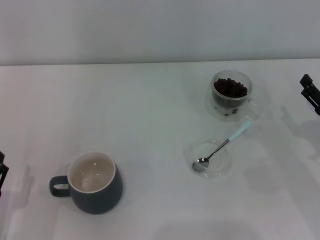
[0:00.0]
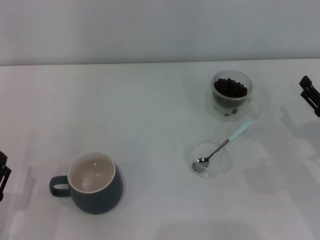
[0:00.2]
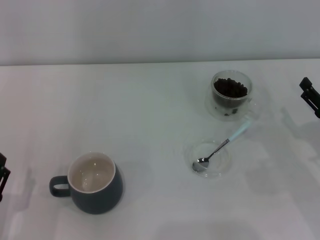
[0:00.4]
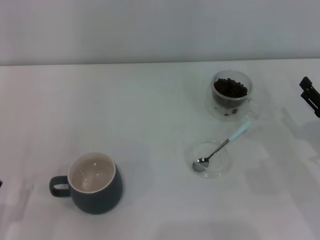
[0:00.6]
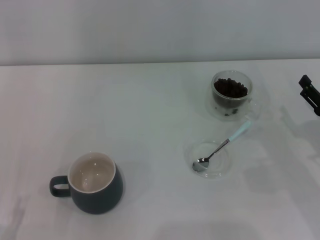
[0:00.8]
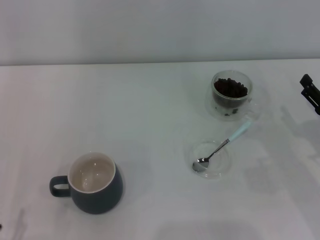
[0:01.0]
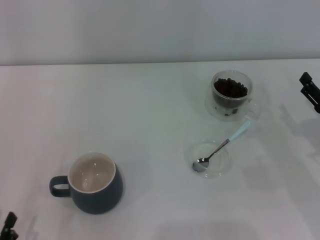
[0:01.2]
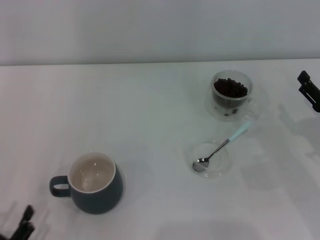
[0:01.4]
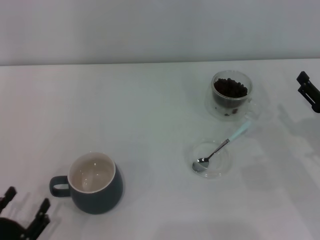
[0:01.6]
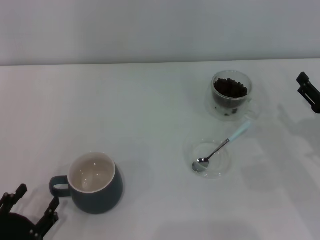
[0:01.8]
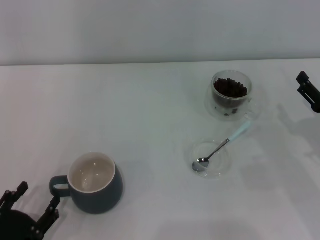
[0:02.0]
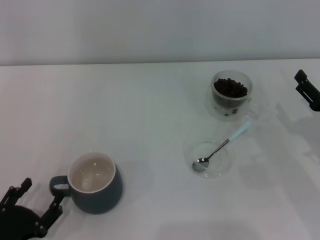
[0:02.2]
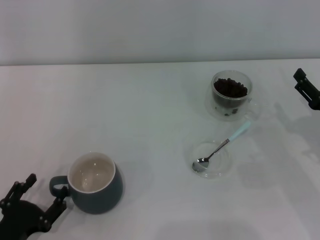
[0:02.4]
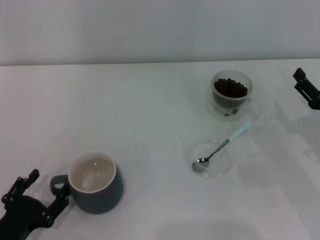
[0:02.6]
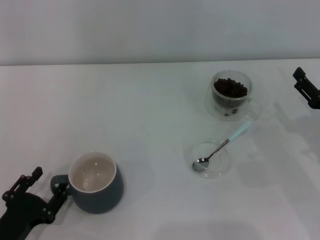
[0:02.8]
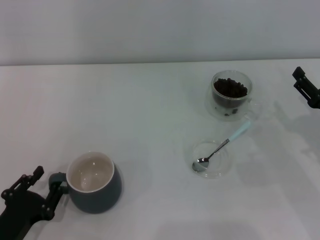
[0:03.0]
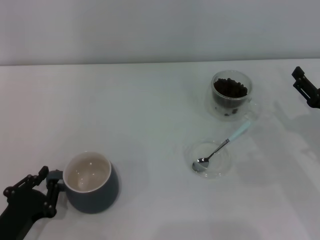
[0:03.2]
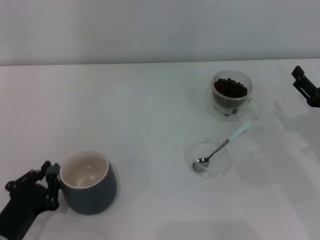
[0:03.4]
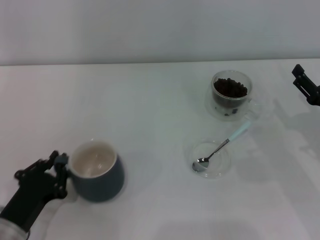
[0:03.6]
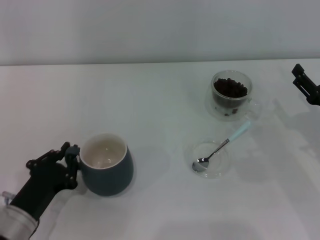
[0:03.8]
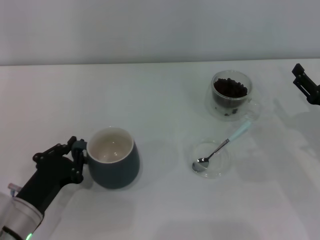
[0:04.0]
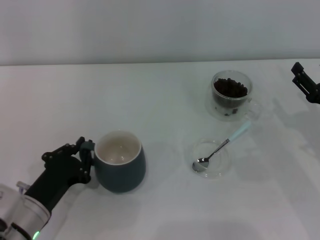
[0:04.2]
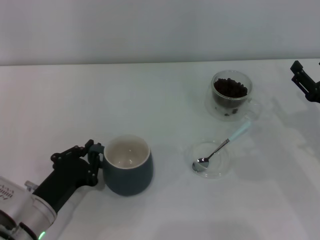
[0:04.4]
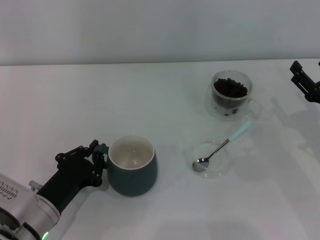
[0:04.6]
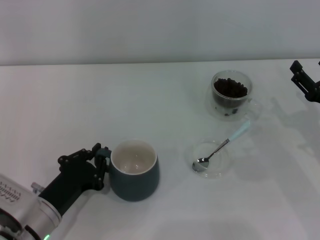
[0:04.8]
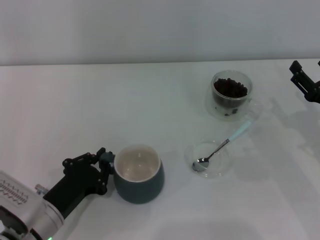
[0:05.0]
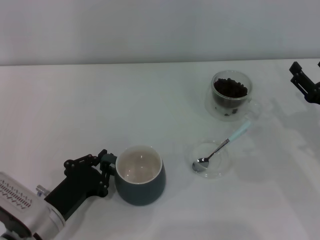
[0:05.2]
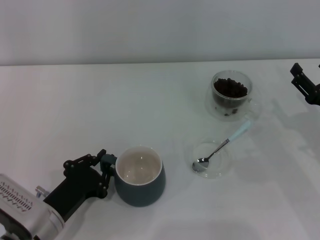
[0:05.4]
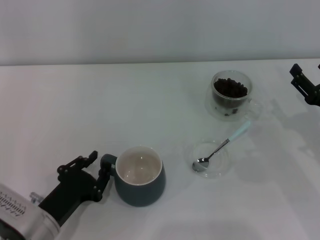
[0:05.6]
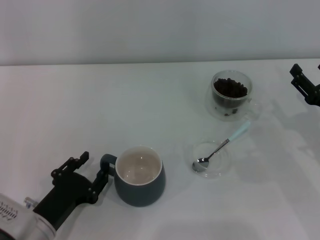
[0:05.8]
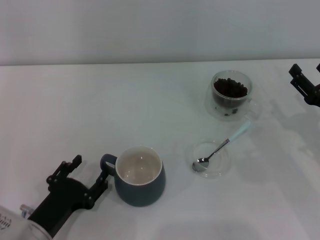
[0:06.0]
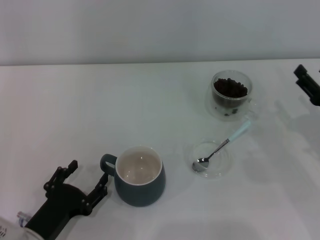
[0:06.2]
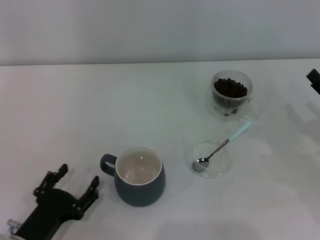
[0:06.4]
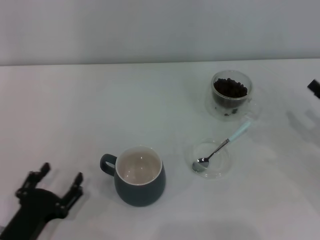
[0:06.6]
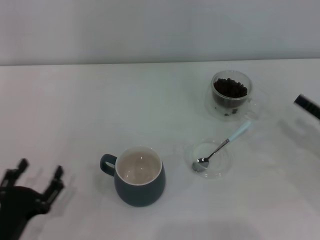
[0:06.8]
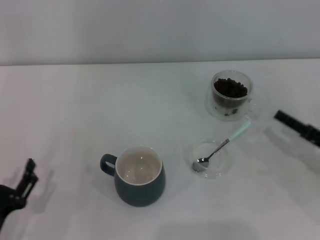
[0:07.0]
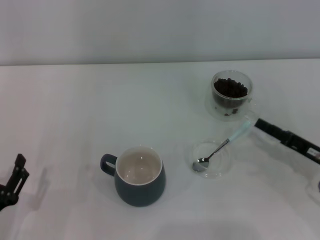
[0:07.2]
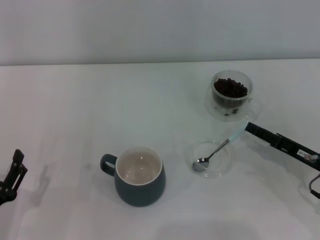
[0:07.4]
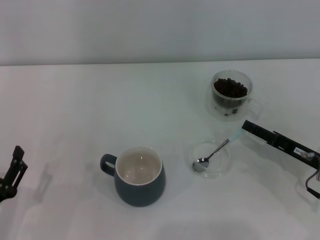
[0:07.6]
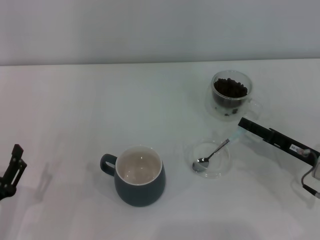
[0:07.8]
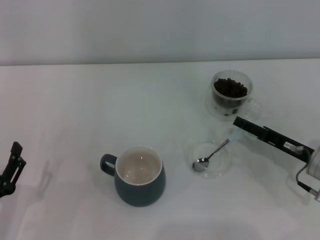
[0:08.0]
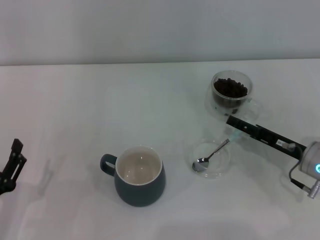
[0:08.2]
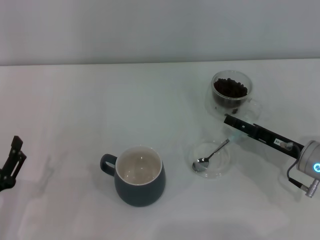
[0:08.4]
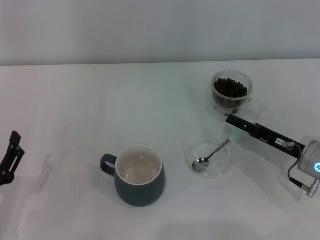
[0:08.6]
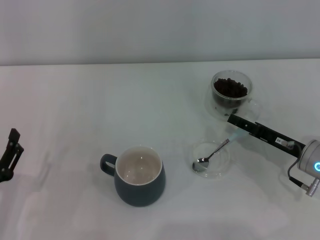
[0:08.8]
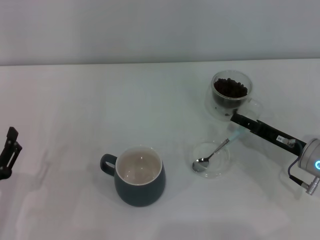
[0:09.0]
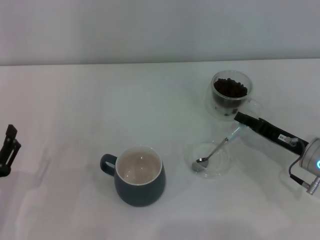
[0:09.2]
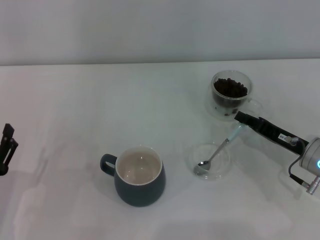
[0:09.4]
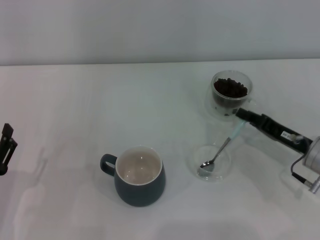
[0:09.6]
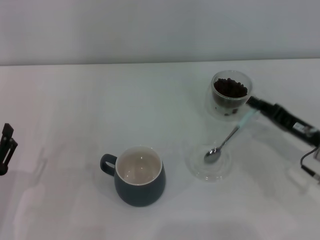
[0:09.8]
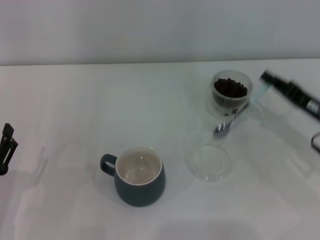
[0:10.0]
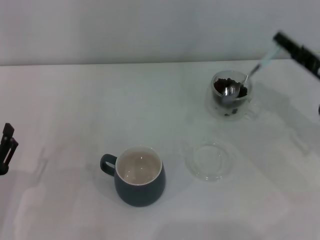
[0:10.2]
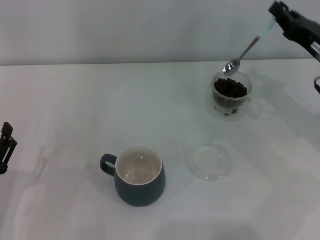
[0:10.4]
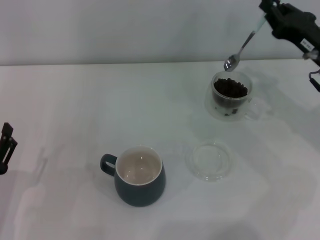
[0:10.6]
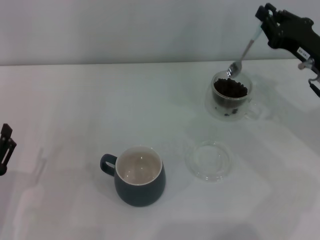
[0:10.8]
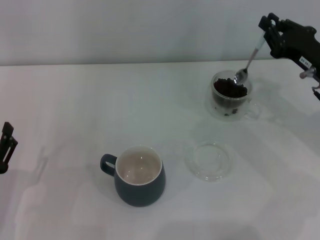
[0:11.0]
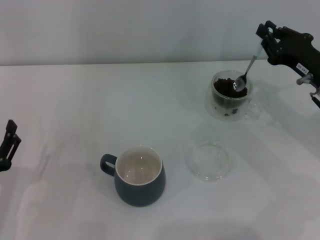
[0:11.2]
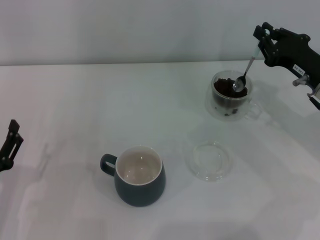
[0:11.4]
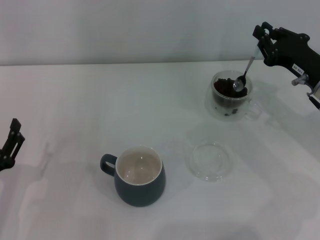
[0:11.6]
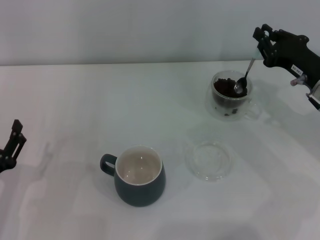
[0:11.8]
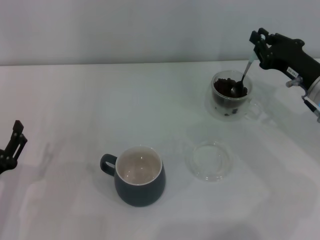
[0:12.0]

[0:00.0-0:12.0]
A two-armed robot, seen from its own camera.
Task of the whole recording: Use a blue spoon to take out the coffee beans from the glass and pour them into the gray cup.
Step, 0:00.0 to 0:06.2: Move the cup to the center of view with the left gripper.
Step, 0:06.4 to 0:09.8: Pick up the spoon with the right gripper.
0:01.6 to 0:03.0: The left gripper travels forward by approximately 5 cm.
0:03.0 to 0:04.4: The left gripper shifts roughly 10 cm forward and to the right, and closes its fingers.
0:04.4 to 0:06.0: The left gripper opens its fingers.
0:06.0 to 0:07.6: The left gripper moves to the left, roughly 5 cm.
0:07.6 to 0:09.0: There are only small adjustments of the grippers.
0:09.0 to 0:10.4: The right gripper travels upward and forward by approximately 10 cm, and closes its fingers.

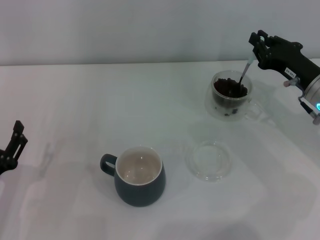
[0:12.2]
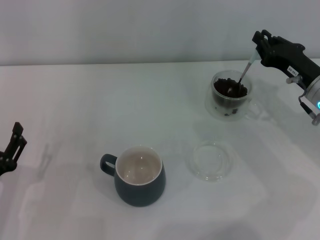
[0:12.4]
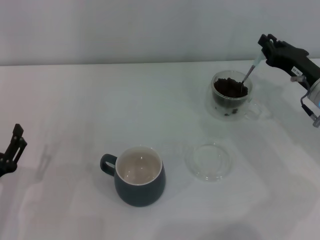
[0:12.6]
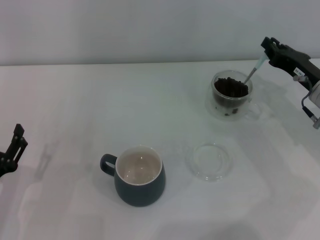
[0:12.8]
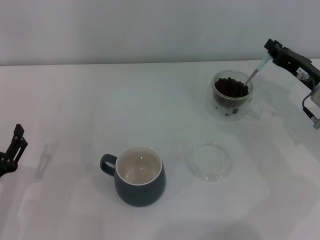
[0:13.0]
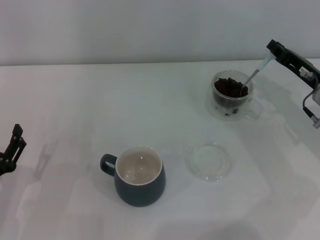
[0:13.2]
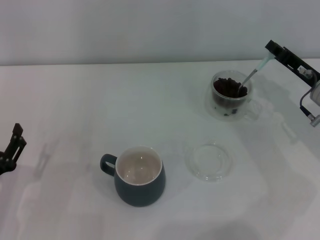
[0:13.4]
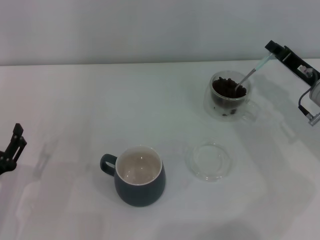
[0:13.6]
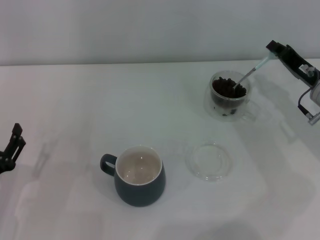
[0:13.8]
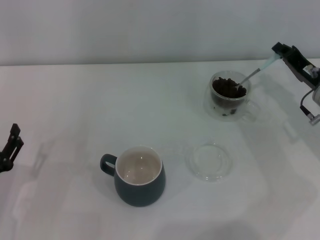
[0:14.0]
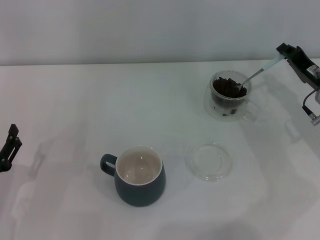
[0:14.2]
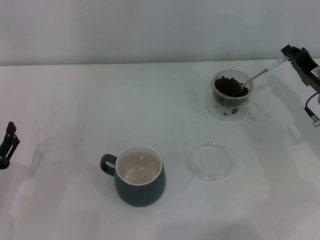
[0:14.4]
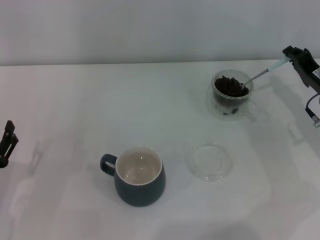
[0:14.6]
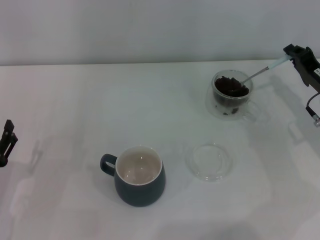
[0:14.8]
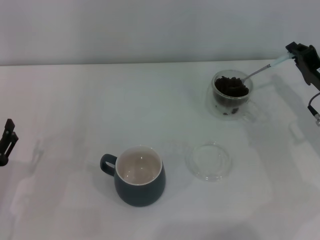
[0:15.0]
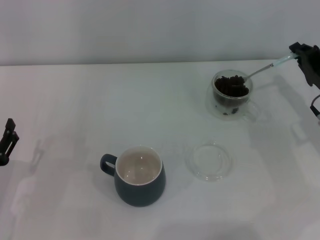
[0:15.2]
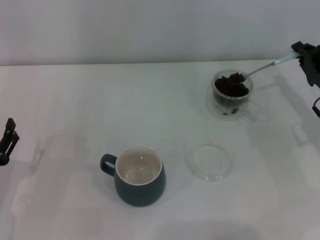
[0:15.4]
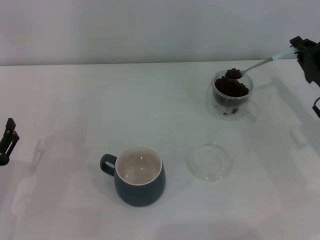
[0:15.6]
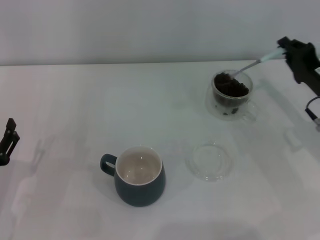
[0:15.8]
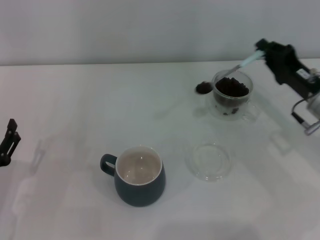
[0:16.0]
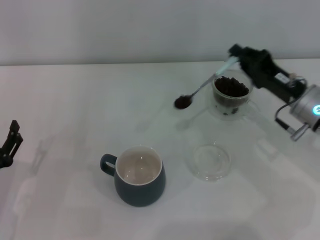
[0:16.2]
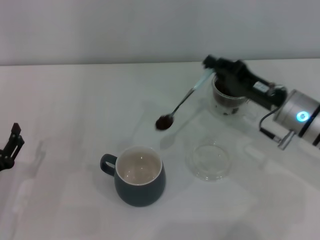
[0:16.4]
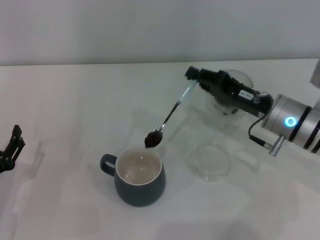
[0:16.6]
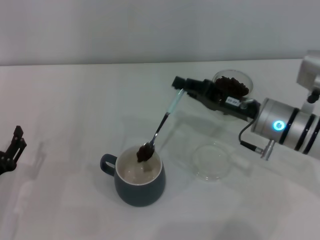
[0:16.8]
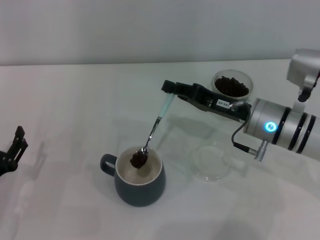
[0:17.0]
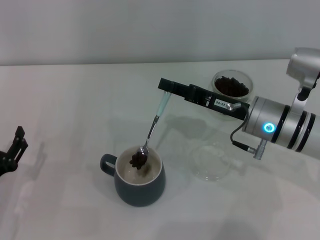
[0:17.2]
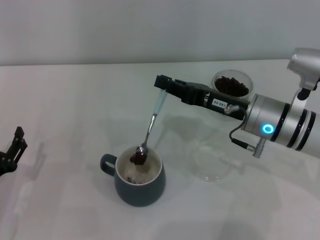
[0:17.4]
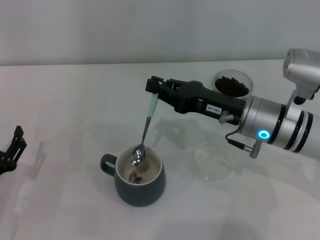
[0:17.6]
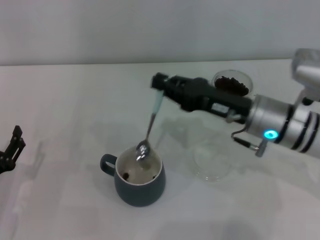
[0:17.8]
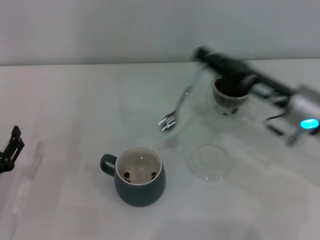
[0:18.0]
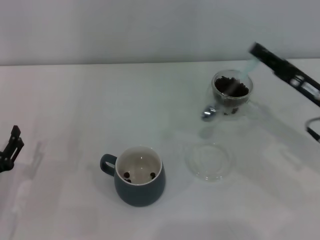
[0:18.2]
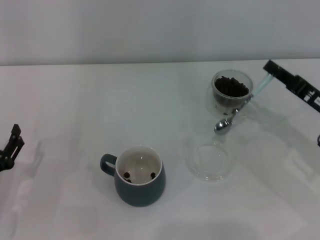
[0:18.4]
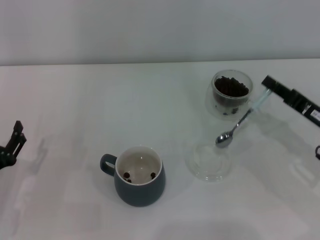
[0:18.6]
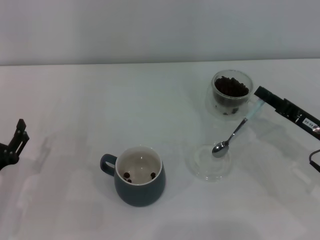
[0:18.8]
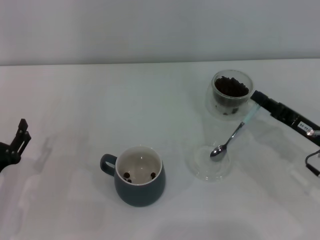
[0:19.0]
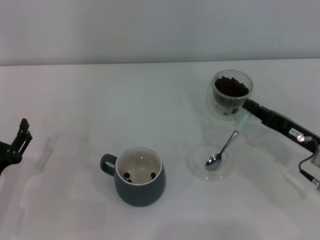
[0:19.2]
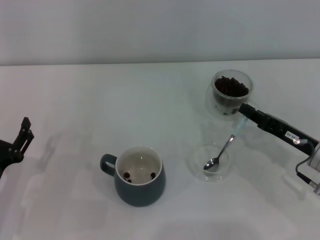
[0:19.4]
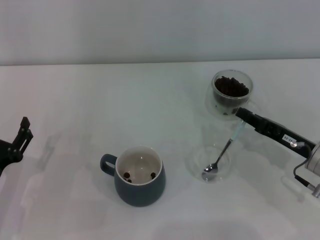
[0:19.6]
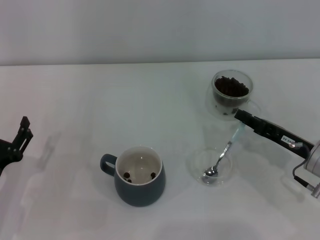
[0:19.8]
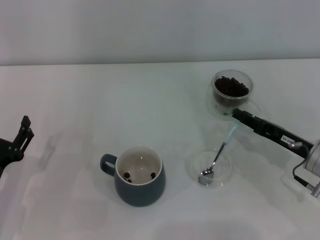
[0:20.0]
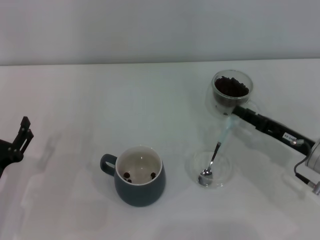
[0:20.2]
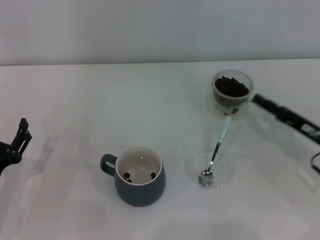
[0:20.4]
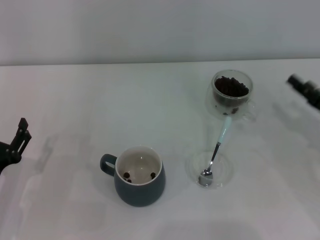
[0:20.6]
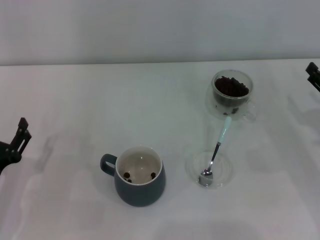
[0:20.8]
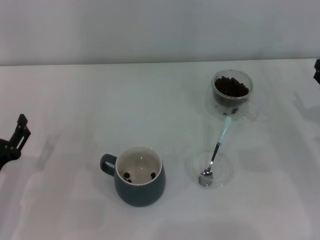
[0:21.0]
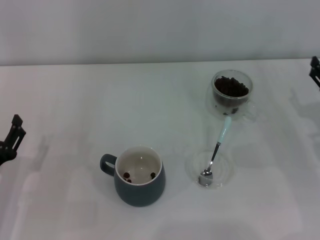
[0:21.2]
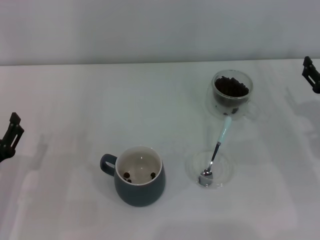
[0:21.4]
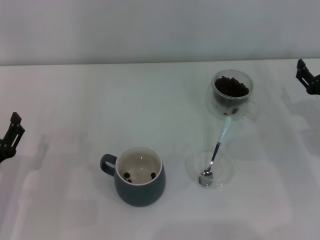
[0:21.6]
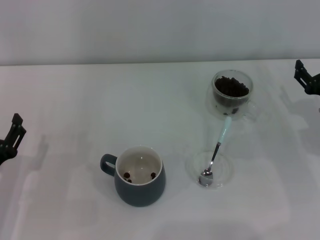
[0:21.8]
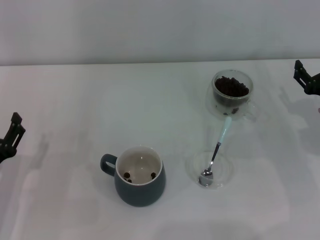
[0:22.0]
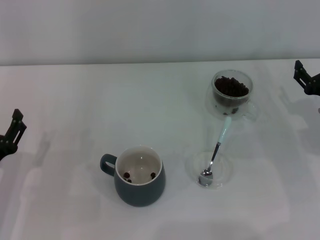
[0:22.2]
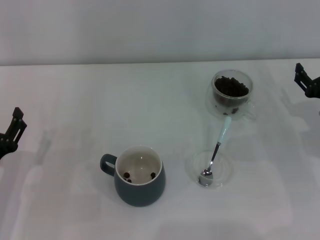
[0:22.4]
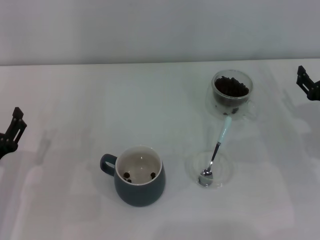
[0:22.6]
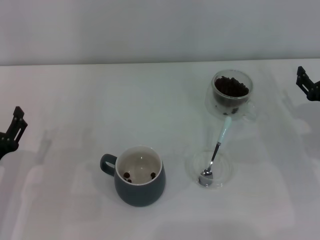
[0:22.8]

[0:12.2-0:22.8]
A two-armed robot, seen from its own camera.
Task of the whole recording: Use a blue spoon to take out the coffee beans from the glass and pour them into the gray cup.
Step, 0:12.2 to 0:17.8: Scoop a spoonful of beans into the cup with the right gripper.
Step, 0:18.0 to 0:20.2: Place the spoon back in its original place with the right gripper.
0:13.8 to 0:15.2: The grippers make only small movements.
0:15.2 to 0:16.8: The right gripper goes roughly 10 cm to the left.
0:16.8 to 0:18.2: The right gripper moves to the right, about 10 cm.
0:18.2 to 0:19.8: The right gripper goes about 5 cm downward.
0:19.8 to 0:21.2: The right gripper moves to the right, some 5 cm, and opens its fingers.
0:21.2 to 0:22.8: The grippers stay close to where they were, moving slightly.
